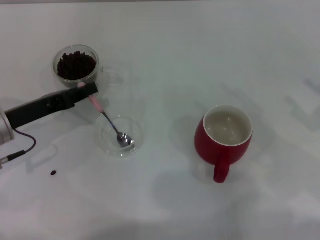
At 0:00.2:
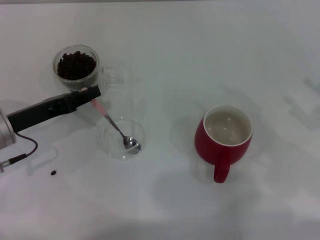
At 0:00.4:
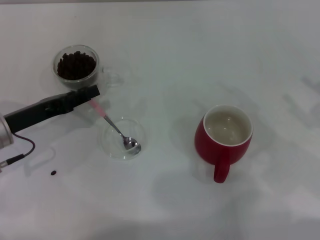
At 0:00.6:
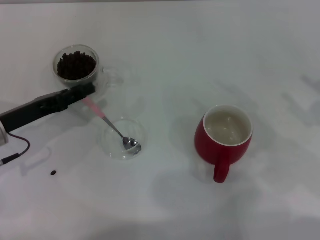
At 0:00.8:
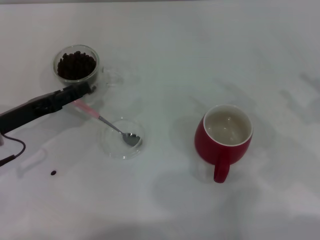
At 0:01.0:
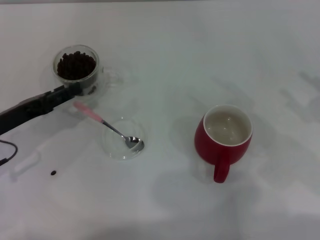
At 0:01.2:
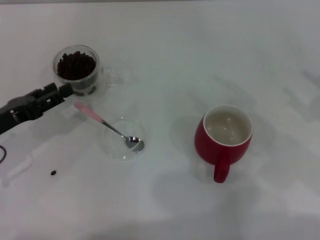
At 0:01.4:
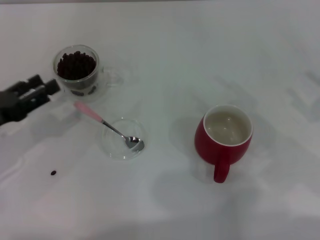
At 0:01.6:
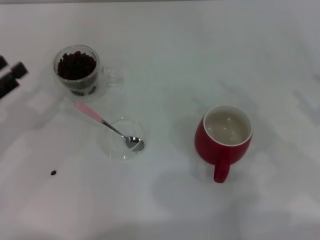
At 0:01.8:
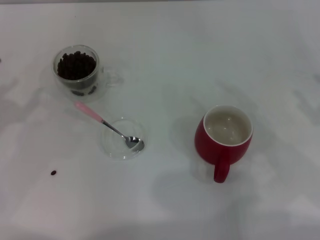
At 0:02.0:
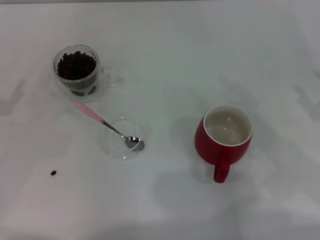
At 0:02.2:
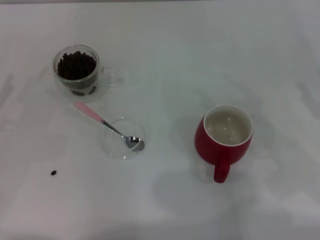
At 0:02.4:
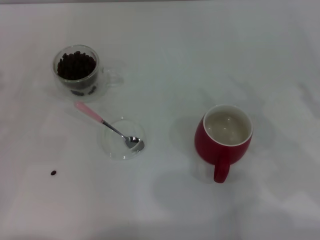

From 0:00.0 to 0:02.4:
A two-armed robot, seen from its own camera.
Task of the whole recording: Use a pink spoon to take out the coffee beans from the glass and pour them into the red cup.
From 0:00.0 to 0:01.2: The left gripper opens up.
From 0:01.2 to 0:02.4: The left gripper moves to the left, about 10 cm.

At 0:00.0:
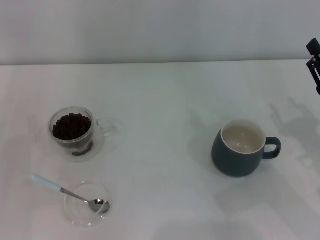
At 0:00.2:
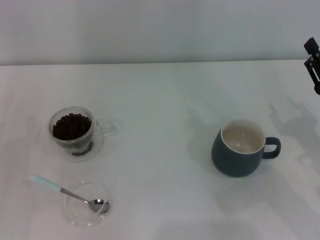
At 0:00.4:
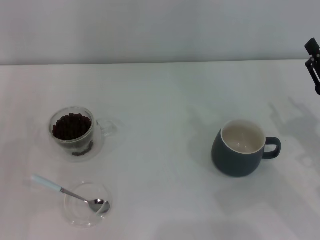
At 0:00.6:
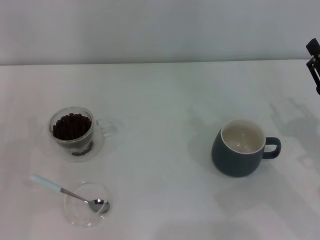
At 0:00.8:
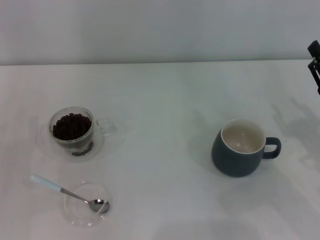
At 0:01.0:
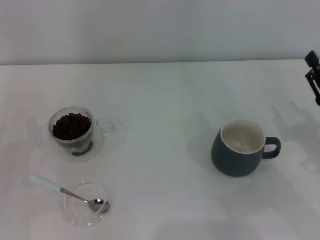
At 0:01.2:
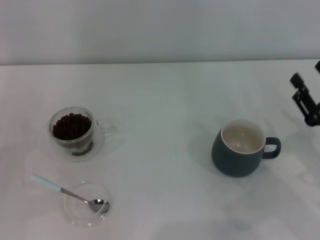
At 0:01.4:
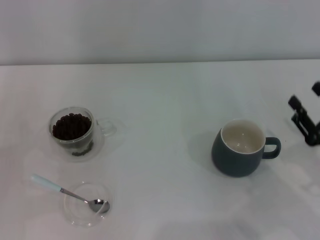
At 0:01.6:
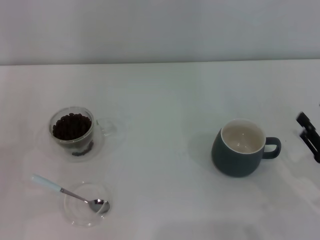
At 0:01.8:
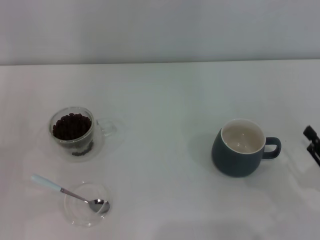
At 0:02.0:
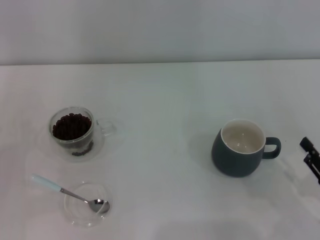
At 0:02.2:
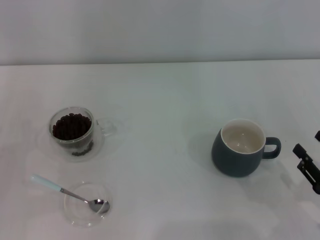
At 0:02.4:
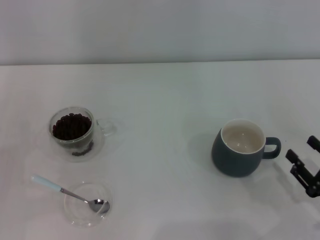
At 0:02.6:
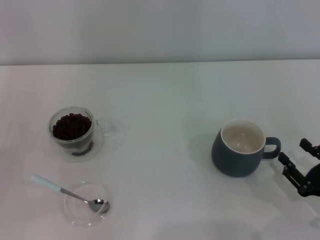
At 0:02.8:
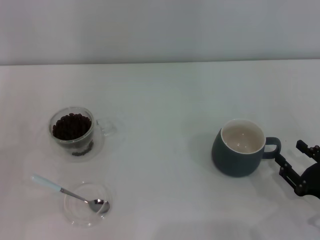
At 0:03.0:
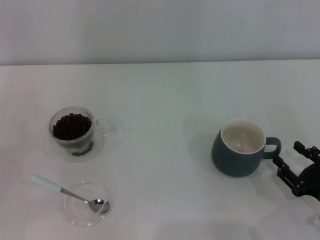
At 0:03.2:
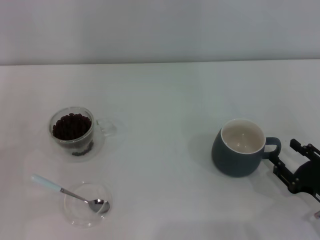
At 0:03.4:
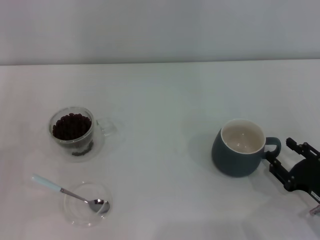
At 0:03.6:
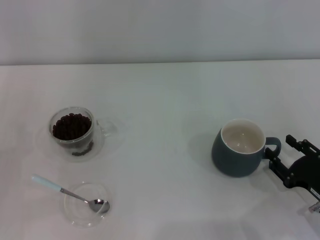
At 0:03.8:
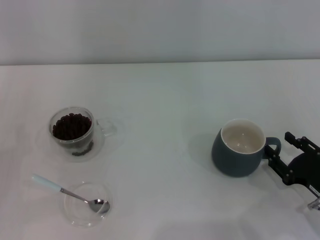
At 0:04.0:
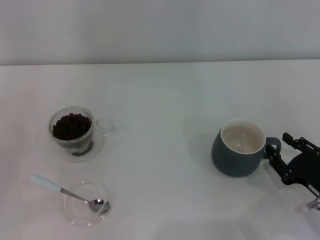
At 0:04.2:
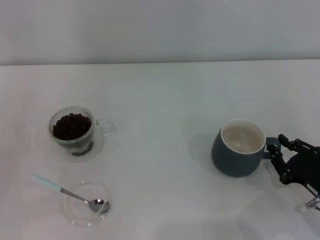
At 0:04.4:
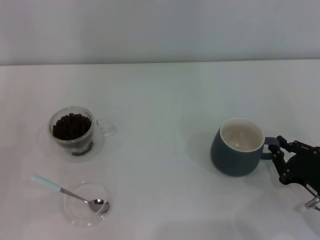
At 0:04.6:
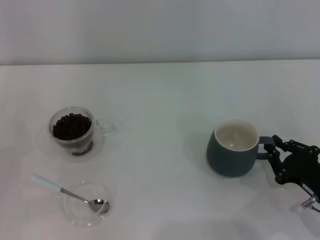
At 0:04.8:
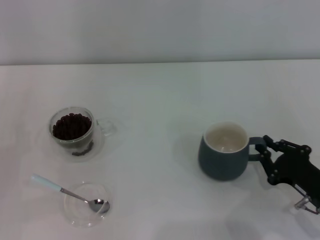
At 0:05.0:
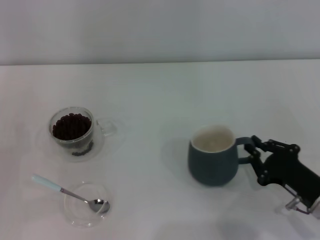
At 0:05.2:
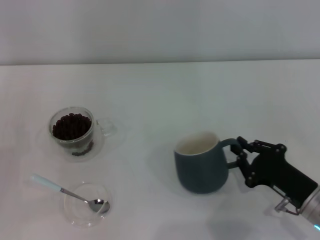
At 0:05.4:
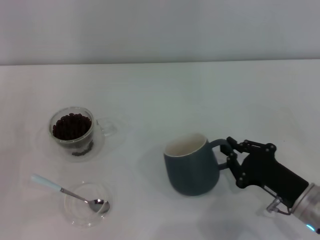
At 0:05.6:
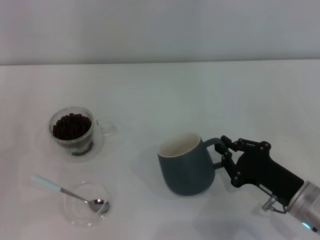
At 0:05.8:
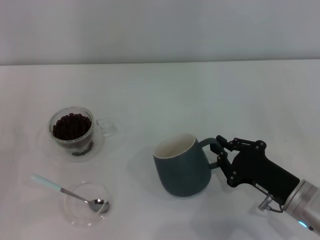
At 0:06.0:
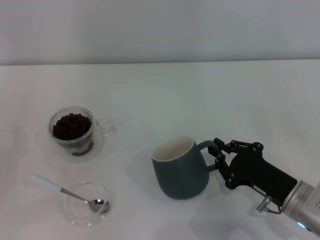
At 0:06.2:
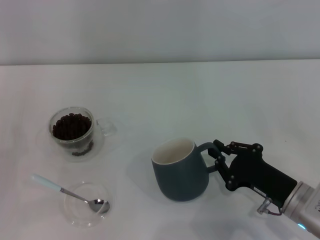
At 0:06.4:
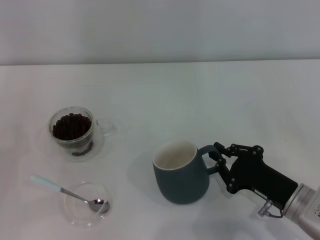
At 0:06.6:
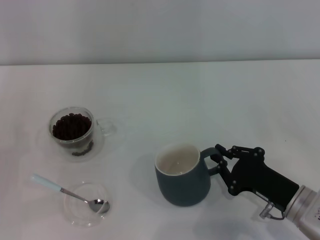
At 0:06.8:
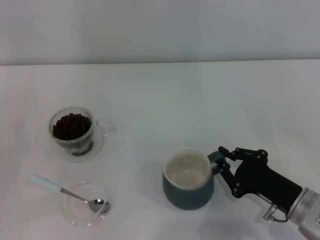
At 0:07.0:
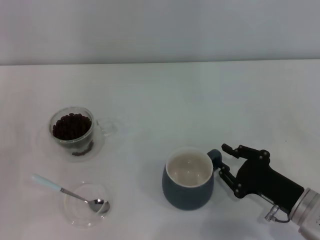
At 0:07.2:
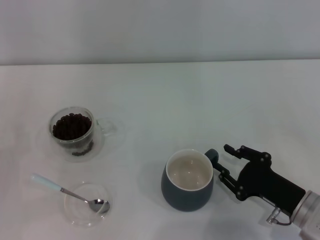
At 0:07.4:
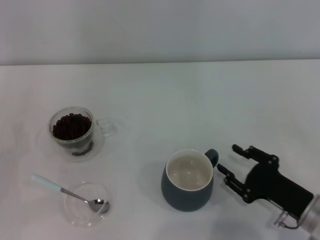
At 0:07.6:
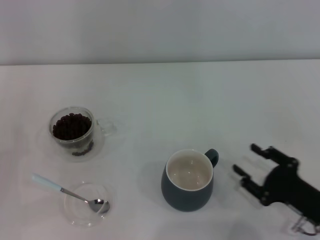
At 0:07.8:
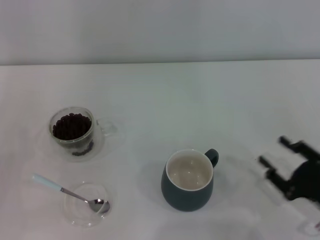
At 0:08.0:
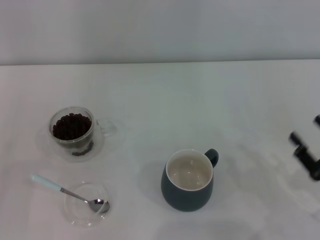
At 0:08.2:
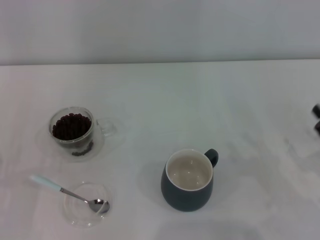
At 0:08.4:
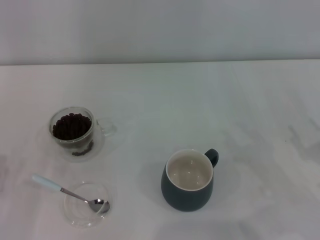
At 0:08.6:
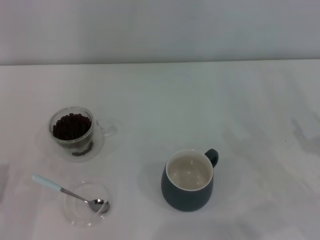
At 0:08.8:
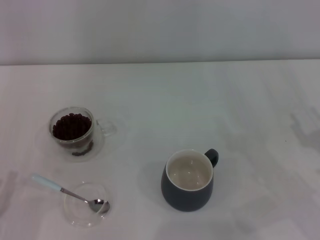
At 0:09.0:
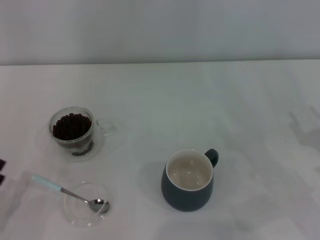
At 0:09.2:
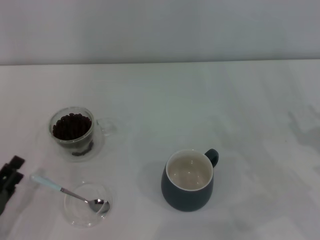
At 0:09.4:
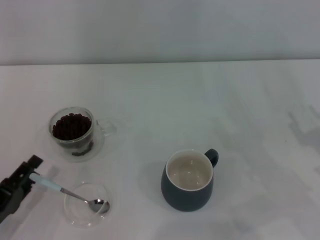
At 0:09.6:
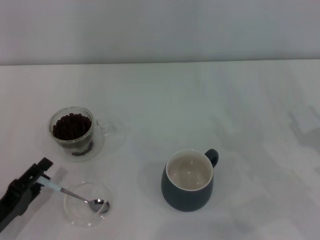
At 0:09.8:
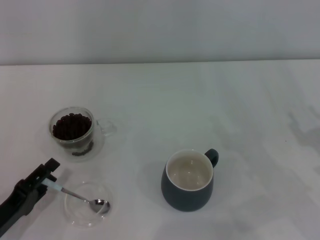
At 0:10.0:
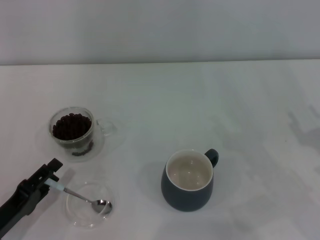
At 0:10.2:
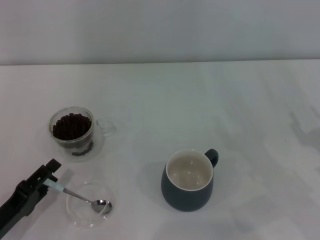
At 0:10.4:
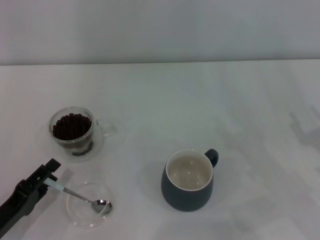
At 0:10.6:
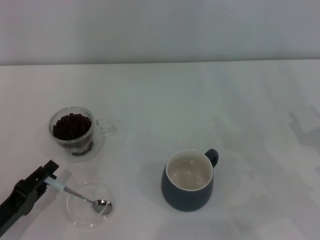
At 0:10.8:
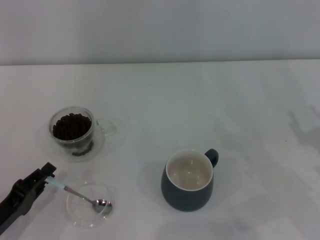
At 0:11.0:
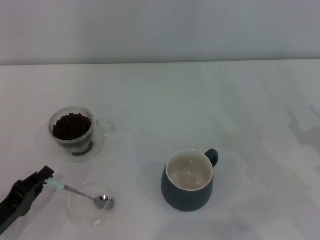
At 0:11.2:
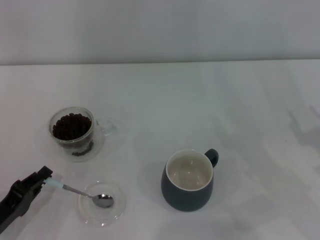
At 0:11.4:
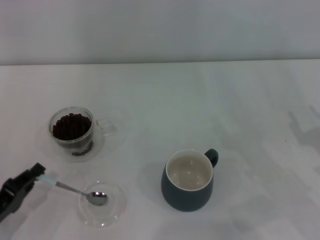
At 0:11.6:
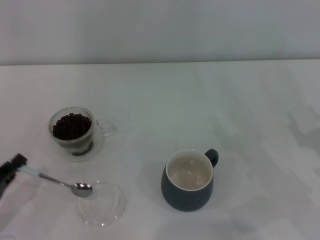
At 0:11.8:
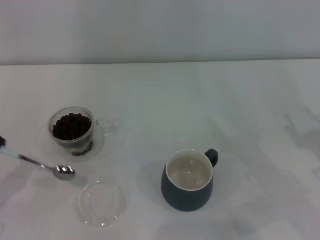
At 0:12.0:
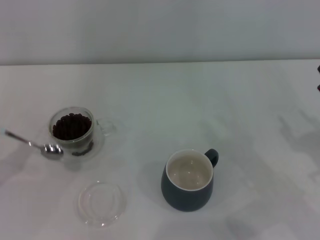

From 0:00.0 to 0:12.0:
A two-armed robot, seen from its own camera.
Task of the whole recording: Use a blue spoon to take out the coffee beans from the glass and pour them into the gray cup.
Step, from 0:00.0 to 0:07.4: Move the cup to the center of view with the left gripper.
Step, from 0:07.6 to 0:11.6: Pick up the spoon with the right gripper.
From 0:00.0 to 0:01.6: The right gripper shifts about 5 cm backward.
From 0:01.6 to 0:03.0: There are only small adjustments of the grippers.
From 0:03.0 to 0:04.4: The right gripper closes.
From 0:04.4 to 0:06.0: The right gripper shifts approximately 5 cm to the left.
From 0:06.0 to 0:07.6: The right gripper changes place by some 5 cm, and opens.
From 0:07.6 to 0:09.0: The left gripper moves backward, about 10 cm. Meanwhile the right gripper moves upward and to the right, approximately 10 cm.
From 0:09.0 to 0:10.4: The grippers stay close to where they were, moving slightly.
From 0:10.4 to 0:12.0: The left gripper shifts about 10 cm to the left and upward, and closes up.

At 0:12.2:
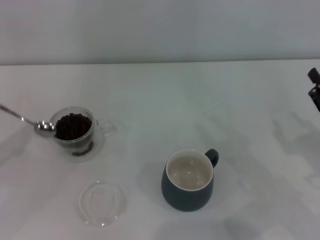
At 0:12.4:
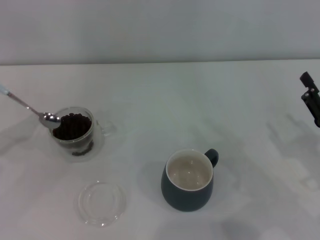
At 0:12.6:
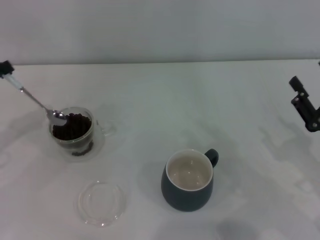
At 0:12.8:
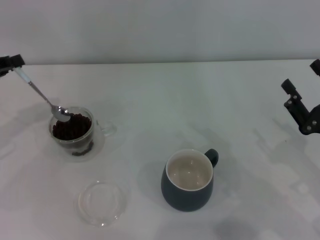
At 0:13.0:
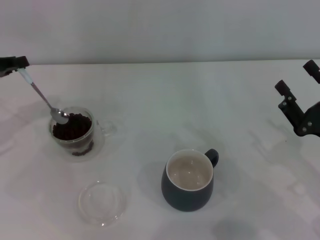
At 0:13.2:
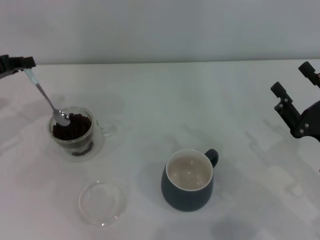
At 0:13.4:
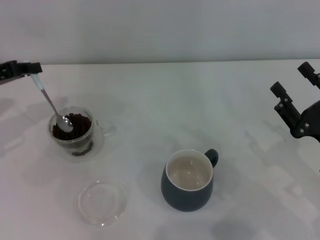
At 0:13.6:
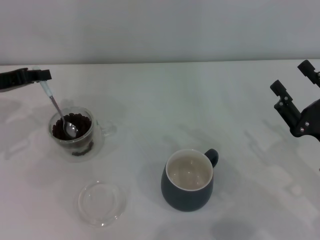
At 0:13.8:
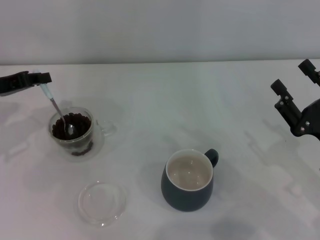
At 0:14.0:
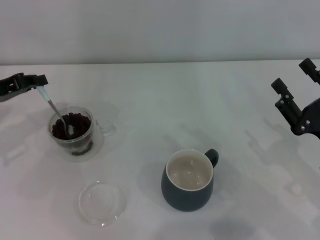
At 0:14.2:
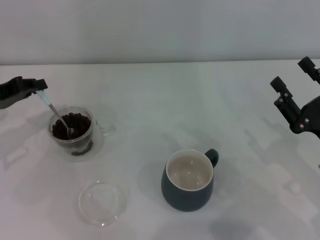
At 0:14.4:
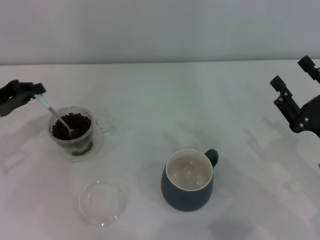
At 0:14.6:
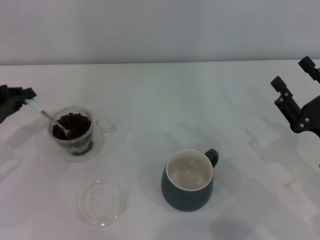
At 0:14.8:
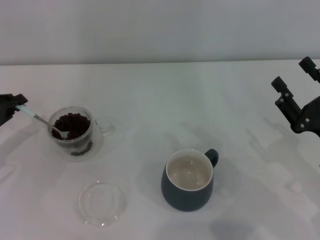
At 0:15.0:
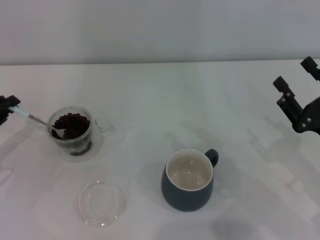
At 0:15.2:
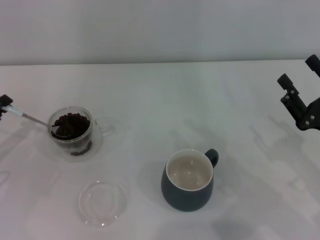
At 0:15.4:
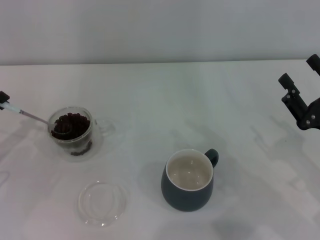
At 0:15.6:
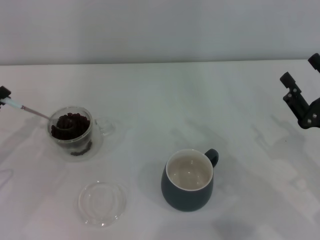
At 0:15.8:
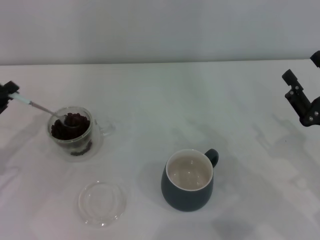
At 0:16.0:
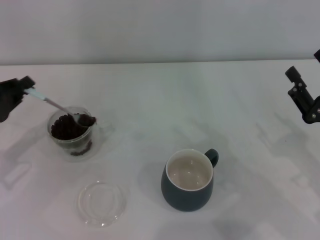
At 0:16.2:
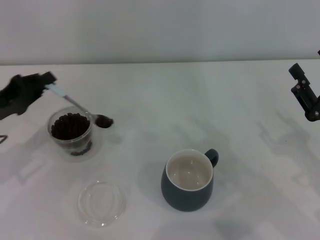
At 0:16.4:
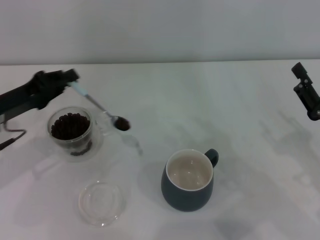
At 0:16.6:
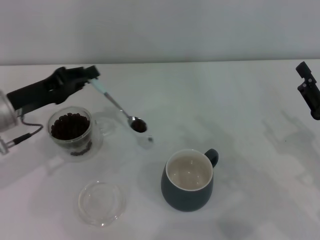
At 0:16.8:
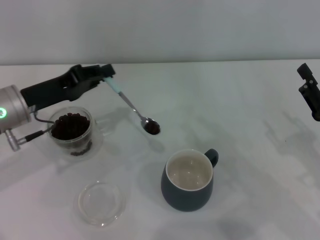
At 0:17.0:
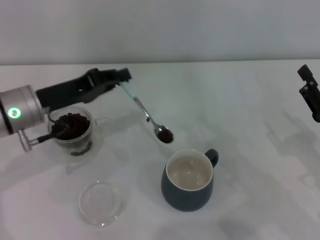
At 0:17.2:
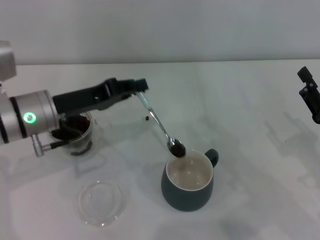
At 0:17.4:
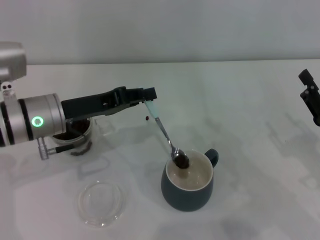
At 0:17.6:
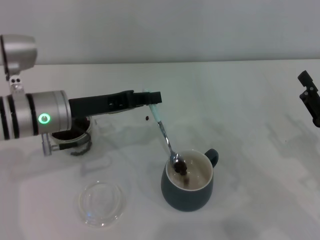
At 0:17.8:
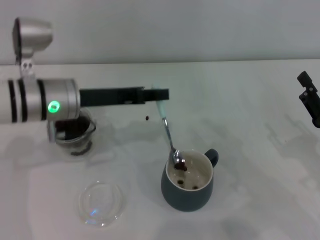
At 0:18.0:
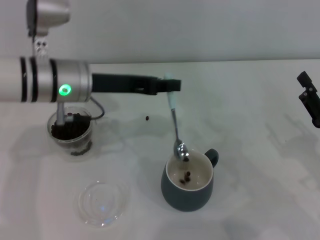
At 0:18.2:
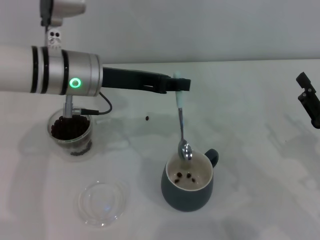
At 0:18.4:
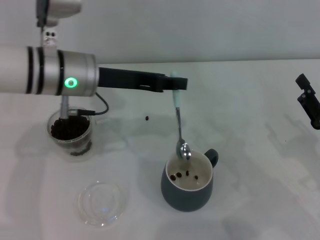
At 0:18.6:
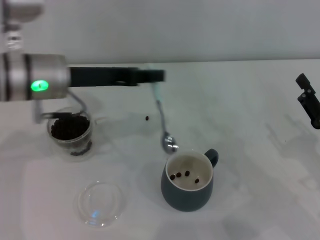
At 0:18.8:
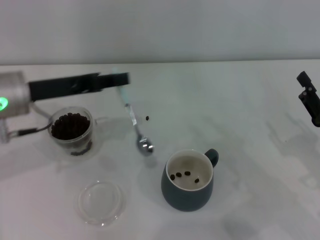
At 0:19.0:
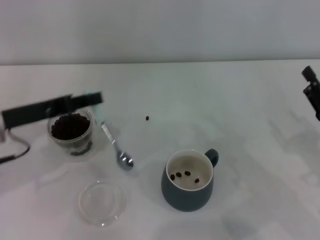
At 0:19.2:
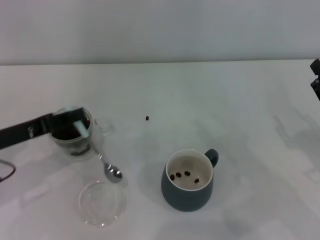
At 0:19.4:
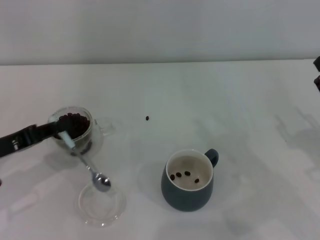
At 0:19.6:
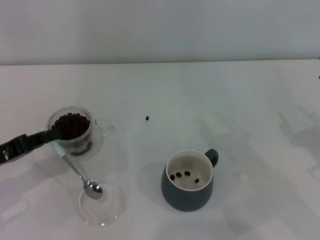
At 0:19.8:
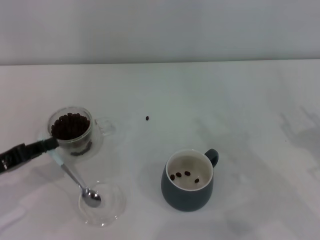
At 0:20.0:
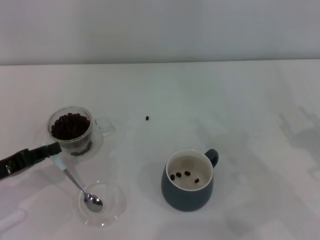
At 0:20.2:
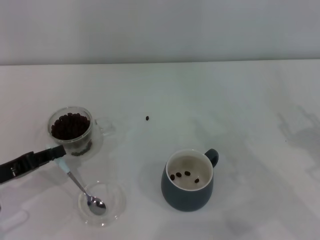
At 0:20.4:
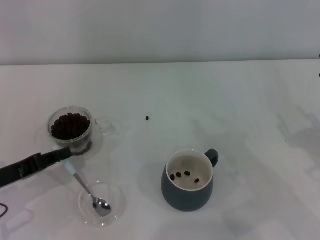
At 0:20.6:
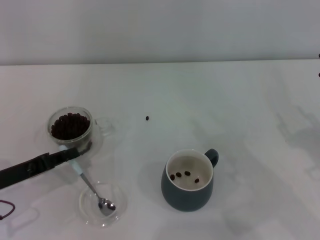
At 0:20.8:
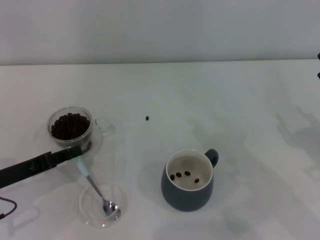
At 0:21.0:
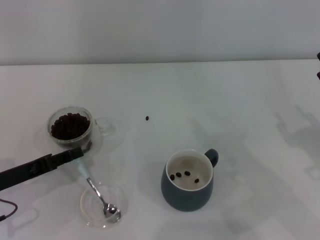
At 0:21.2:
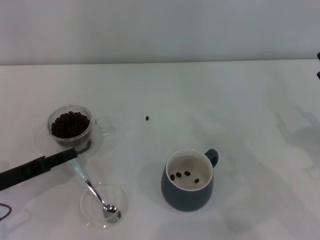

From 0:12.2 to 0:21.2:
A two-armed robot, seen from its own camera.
Task of the whole recording: Use a blue spoon to take out the coffee beans from the glass and pour them into the gray cup.
From 0:12.2 to 0:13.8: The left gripper shifts some 15 cm forward and to the right.
From 0:13.8 to 0:15.2: The left gripper moves backward and downward, roughly 10 cm.
From 0:15.2 to 0:16.6: The left gripper is displaced to the right by approximately 10 cm.
From 0:16.6 to 0:18.2: The left gripper heads to the right and upward, covering some 15 cm.
From 0:18.2 to 0:19.8: The left gripper heads to the left, backward and downward, covering roughly 25 cm.
From 0:19.8 to 0:21.2: The left gripper opens up.
